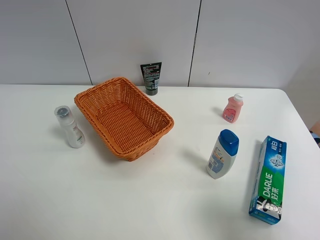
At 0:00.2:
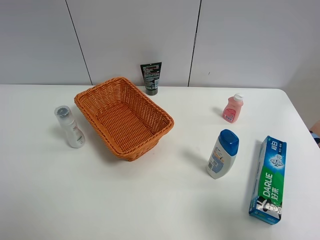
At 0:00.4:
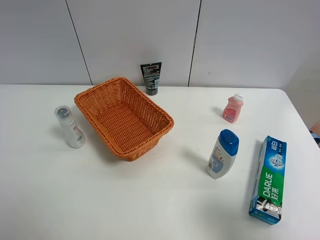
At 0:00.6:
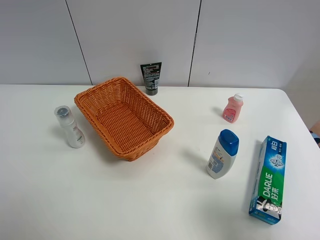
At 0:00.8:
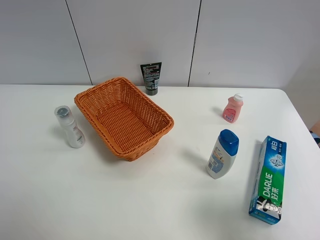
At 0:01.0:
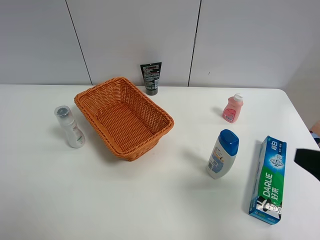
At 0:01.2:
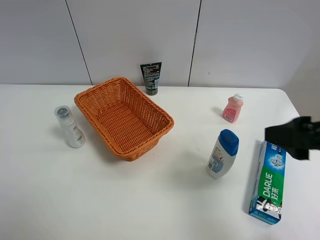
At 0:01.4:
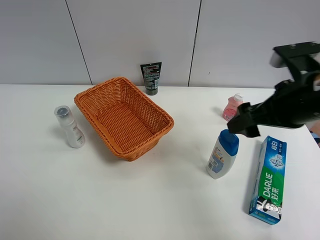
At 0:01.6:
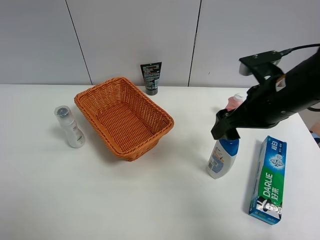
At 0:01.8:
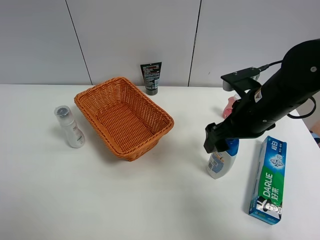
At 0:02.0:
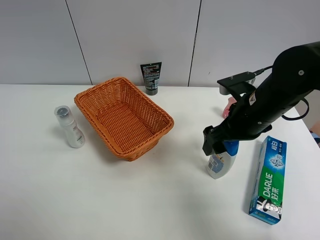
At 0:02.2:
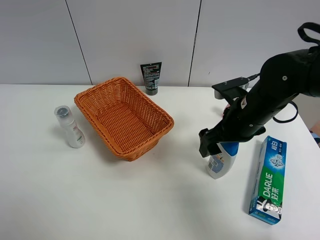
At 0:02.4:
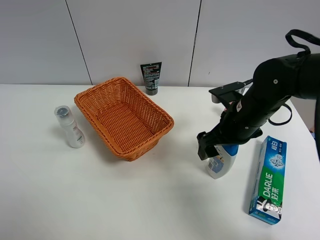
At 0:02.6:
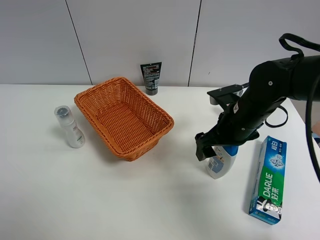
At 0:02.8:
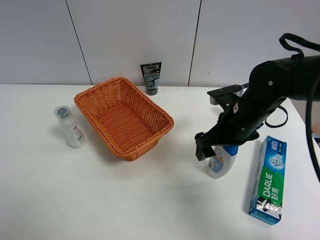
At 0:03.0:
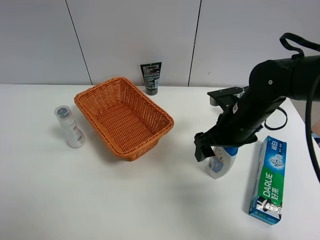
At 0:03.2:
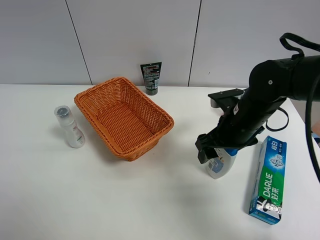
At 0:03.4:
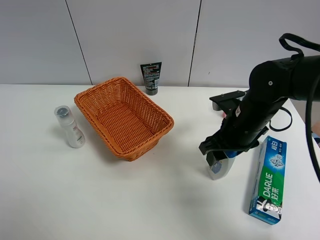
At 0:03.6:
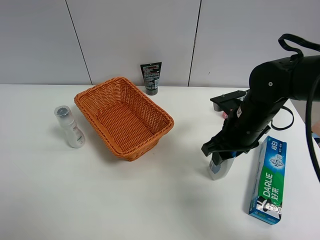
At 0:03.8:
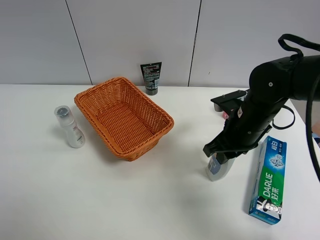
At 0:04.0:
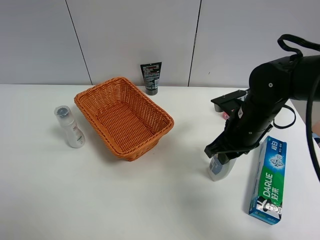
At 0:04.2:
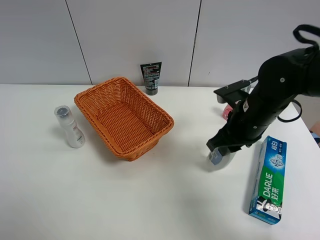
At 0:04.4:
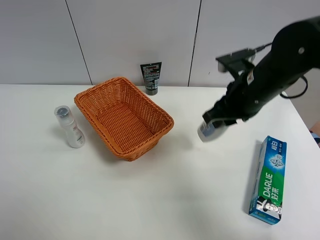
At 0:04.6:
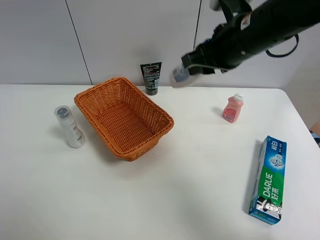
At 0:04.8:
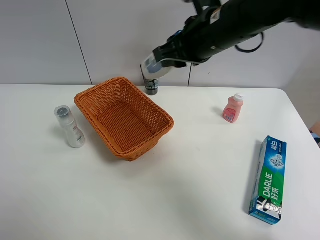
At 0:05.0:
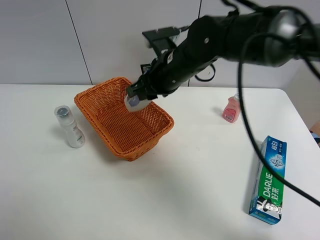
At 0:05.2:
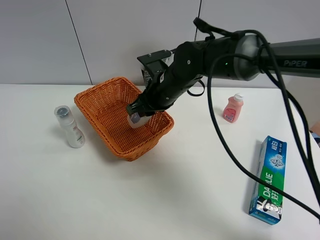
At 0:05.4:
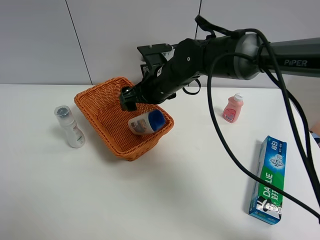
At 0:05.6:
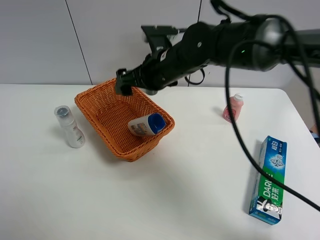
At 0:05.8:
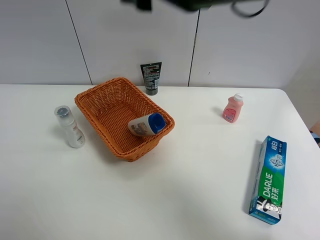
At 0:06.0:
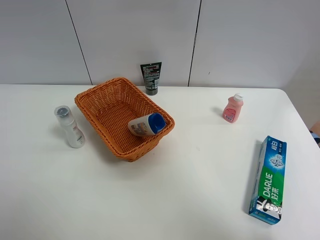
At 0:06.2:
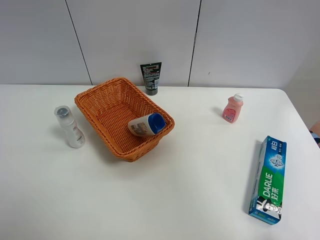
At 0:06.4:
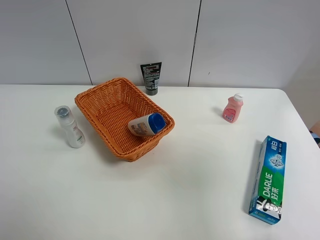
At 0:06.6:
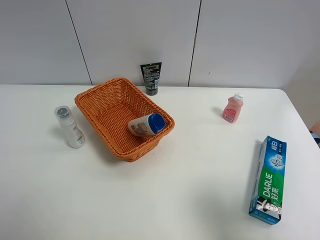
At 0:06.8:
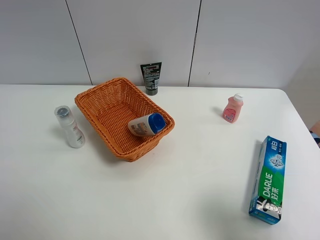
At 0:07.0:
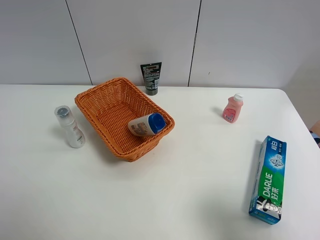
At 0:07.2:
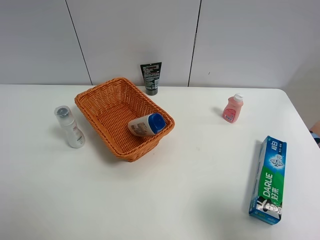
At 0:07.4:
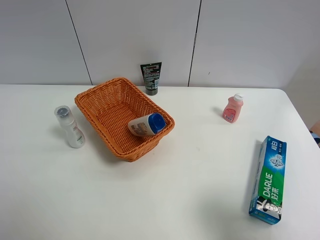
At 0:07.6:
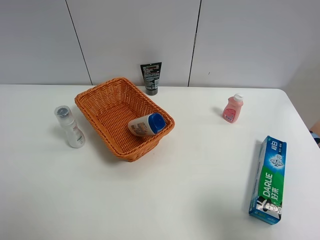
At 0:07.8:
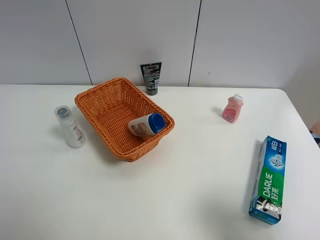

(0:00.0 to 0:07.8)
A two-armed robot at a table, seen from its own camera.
Task of the whole recording: Place the object closest to the toothpaste in the basket.
Step, 0:00.0 - 0:03.8: Grasp the shampoo with right gripper.
Step, 0:04.0 - 0:05.6: Place the shampoo in the basket with right gripper.
0:00.0 - 0:01.6: The right gripper travels forward and to the left by approximately 25 cm.
0:01.6 - 0:03.2: The right gripper goes roughly 5 cm downward.
0:03.2 - 0:04.6: The right gripper travels upward by some 15 cm, and closes.
0:04.6 - 0:06.2: The right gripper heads backward, to the right and upward, covering about 30 cm, and opens its fingers.
0:06.2 - 0:07.8: The right gripper is displaced downward and backward by approximately 20 cm.

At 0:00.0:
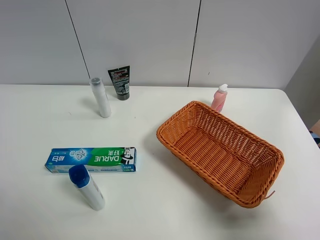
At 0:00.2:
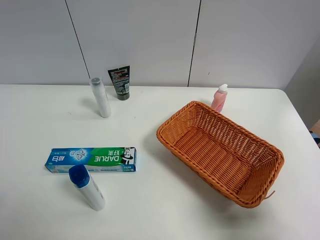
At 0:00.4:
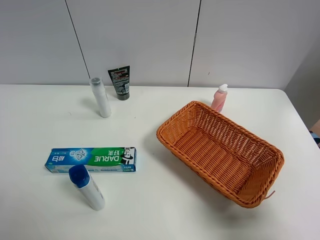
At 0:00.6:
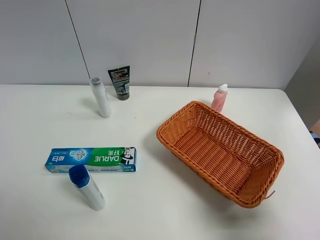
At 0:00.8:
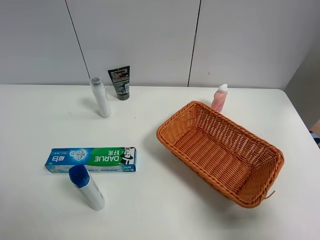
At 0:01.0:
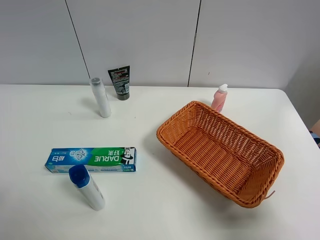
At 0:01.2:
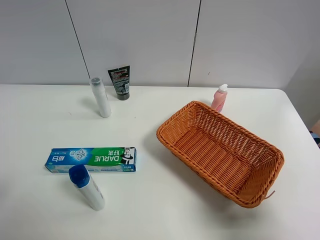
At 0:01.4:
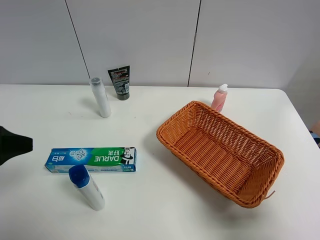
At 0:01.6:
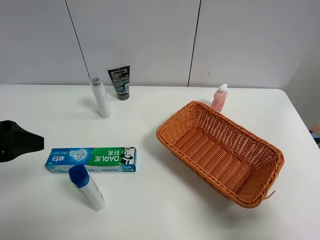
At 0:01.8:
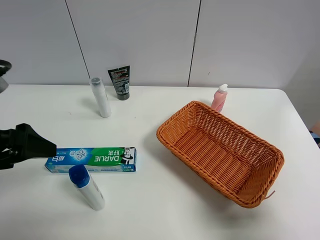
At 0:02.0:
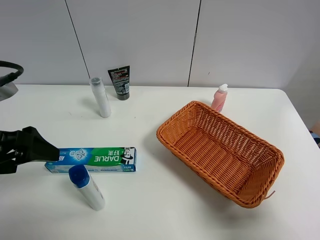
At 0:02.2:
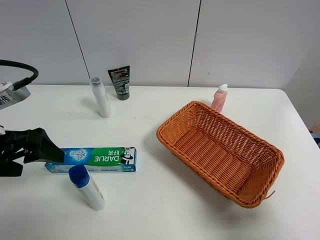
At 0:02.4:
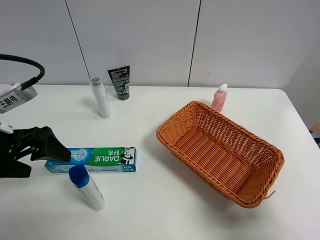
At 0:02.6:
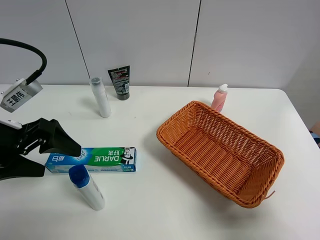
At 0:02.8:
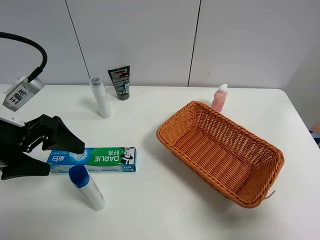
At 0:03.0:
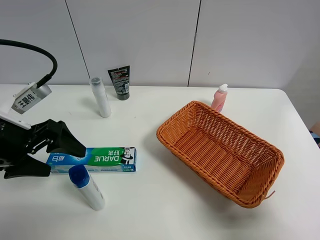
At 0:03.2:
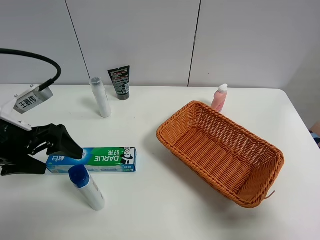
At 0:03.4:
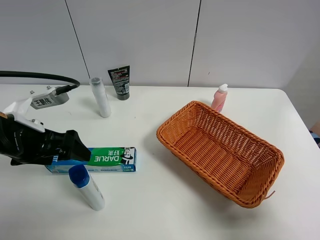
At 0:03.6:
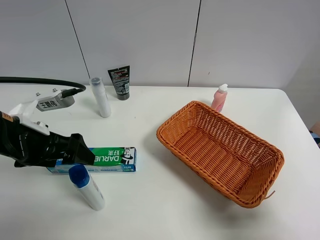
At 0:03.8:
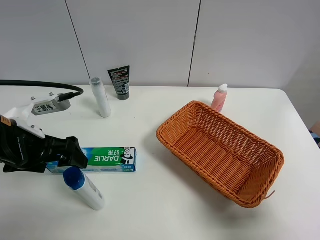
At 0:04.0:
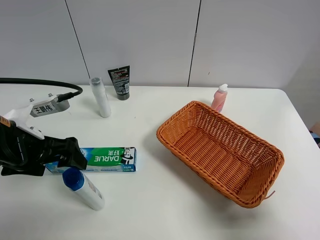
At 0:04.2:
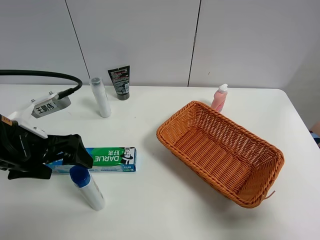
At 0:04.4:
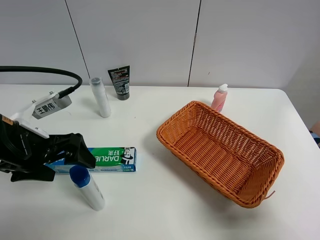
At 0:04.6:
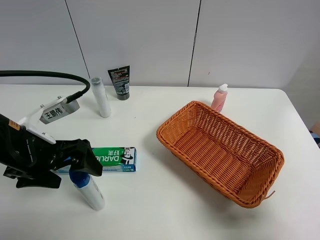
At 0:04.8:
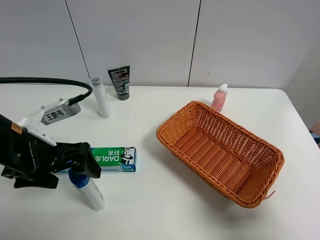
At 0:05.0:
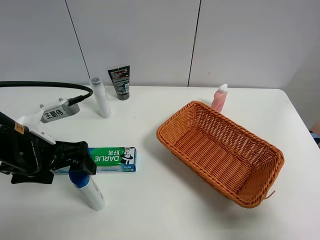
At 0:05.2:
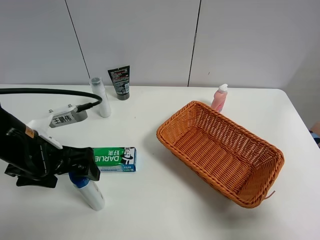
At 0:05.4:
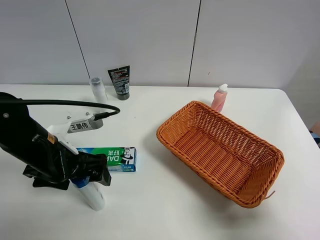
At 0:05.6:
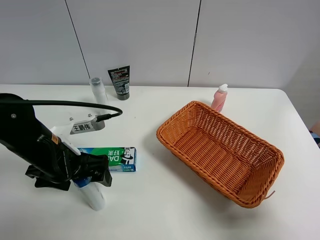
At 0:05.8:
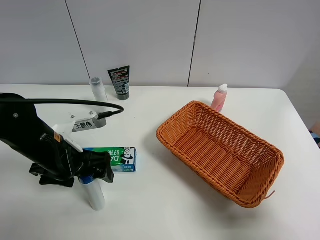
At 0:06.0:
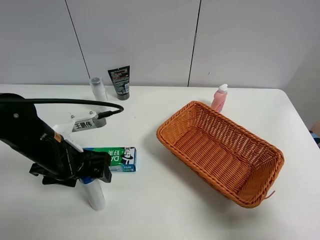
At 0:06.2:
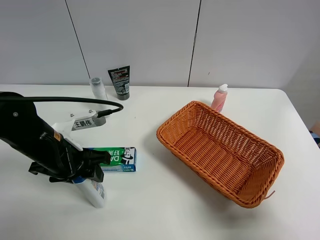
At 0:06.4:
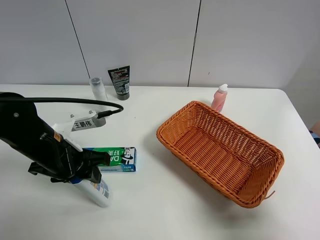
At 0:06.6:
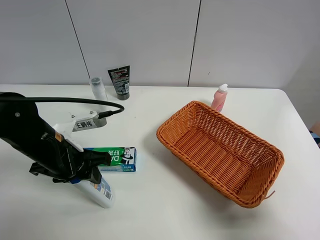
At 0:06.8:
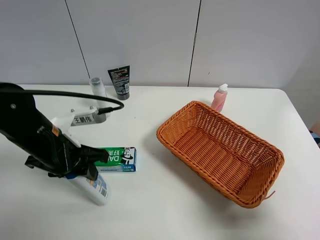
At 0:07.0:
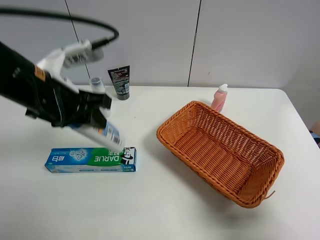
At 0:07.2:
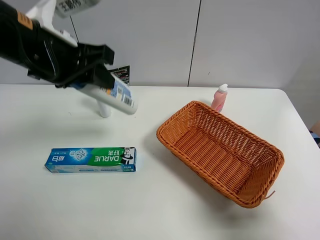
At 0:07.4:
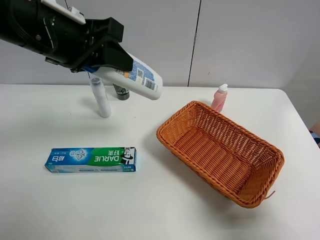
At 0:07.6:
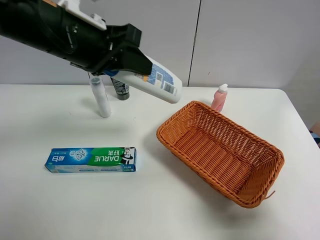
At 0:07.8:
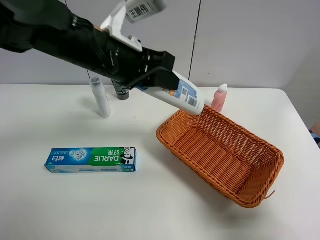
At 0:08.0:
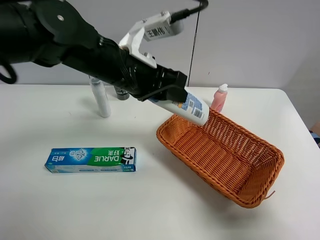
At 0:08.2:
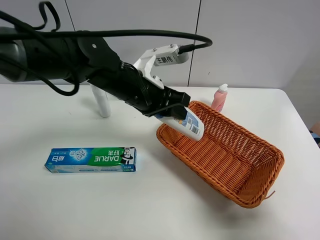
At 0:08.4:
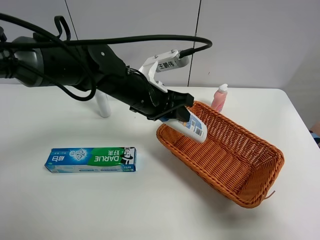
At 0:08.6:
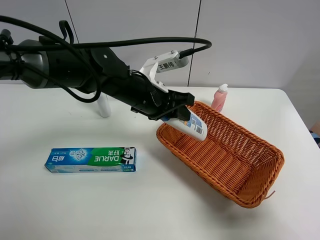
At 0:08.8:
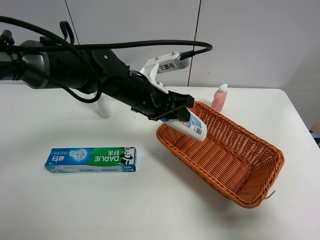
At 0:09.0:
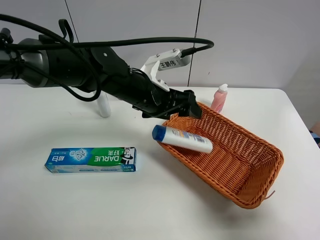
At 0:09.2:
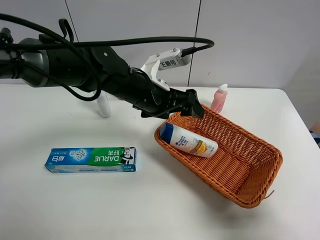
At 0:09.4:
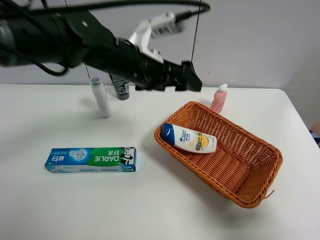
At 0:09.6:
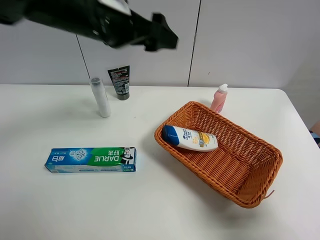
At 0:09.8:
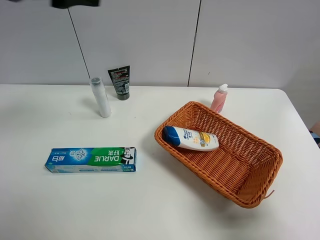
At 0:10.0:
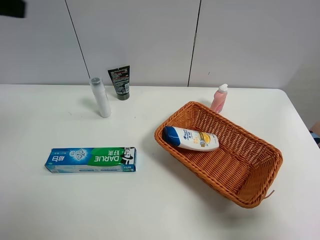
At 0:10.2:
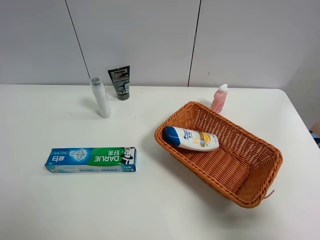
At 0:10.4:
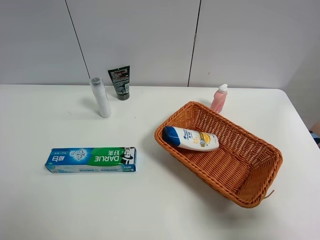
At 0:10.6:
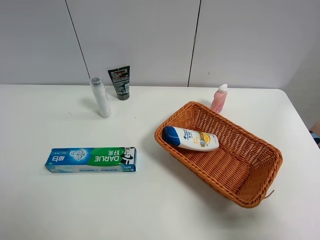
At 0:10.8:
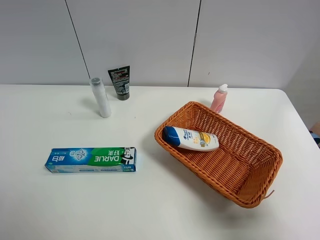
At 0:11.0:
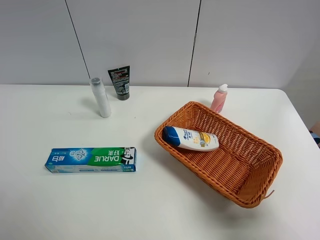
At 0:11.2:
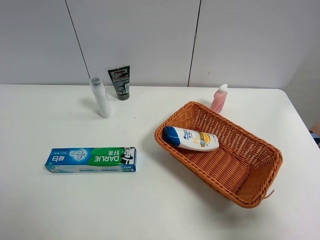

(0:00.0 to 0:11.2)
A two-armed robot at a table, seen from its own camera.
Task of the whole recording: Place the object closest to the toothpaste in the basket.
Step, 0:00.0 - 0:06.4: Grasp the shampoo with left gripper.
Step, 0:06.6 - 0:09.2: Place the shampoo in the basket with left gripper.
0:00.0 - 0:01.6: The left gripper moves forward, about 15 cm.
0:01.6 - 0:03.2: The left gripper moves forward and downward, about 10 cm.
0:03.2 - 0:04.8: The left gripper is displaced to the right by approximately 5 cm.
0:04.8 - 0:06.4: The left gripper moves some 5 cm, and closes up.
0:06.4 - 0:08.0: The left gripper goes about 20 cm to the right, upward and forward.
0:08.0 - 0:09.6: The left gripper shifts approximately 10 cm upward and to the left, and opens.
0:09.6 - 0:11.2: The left gripper goes approximately 35 cm backward and to the left.
